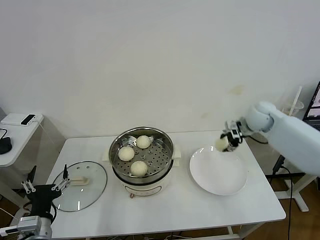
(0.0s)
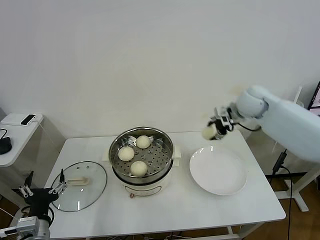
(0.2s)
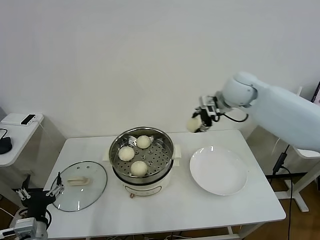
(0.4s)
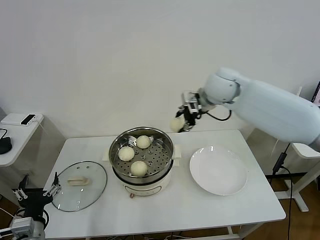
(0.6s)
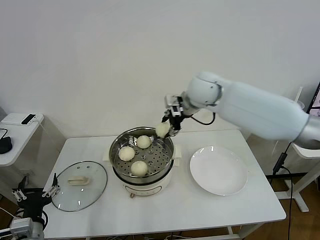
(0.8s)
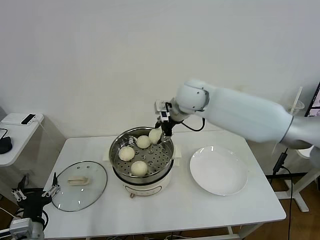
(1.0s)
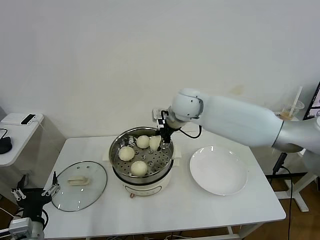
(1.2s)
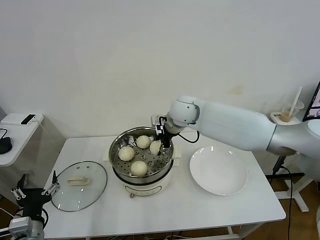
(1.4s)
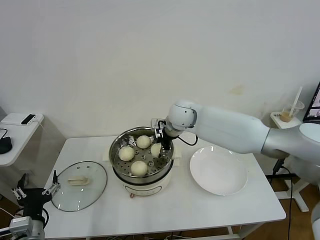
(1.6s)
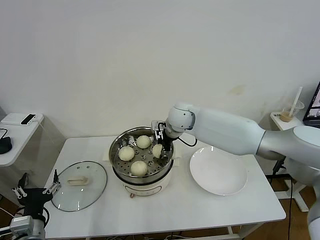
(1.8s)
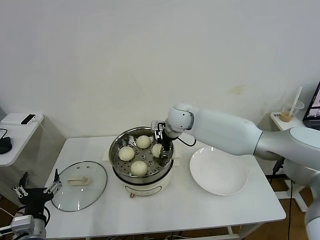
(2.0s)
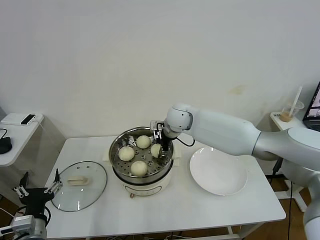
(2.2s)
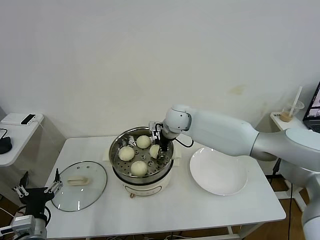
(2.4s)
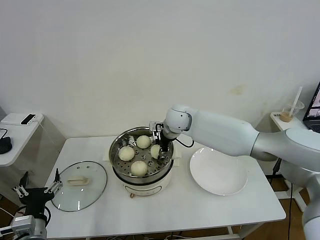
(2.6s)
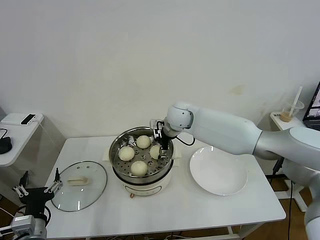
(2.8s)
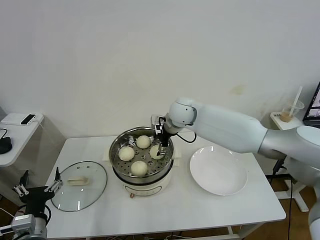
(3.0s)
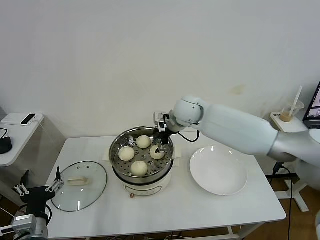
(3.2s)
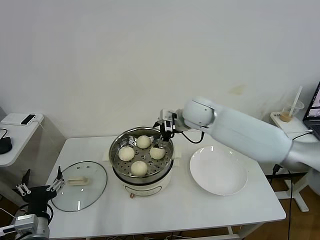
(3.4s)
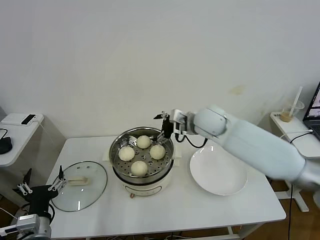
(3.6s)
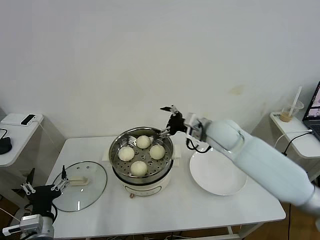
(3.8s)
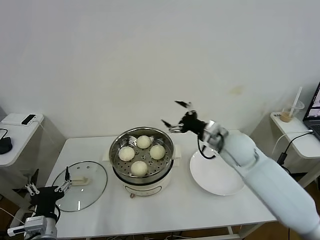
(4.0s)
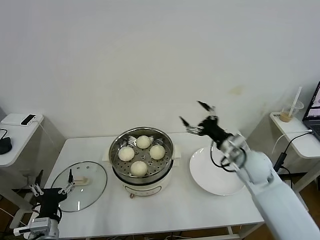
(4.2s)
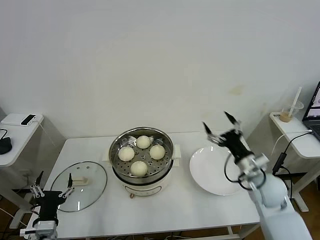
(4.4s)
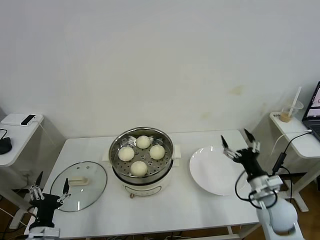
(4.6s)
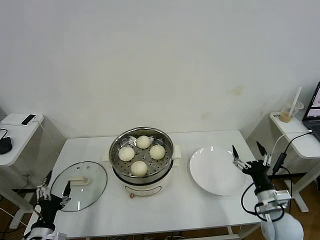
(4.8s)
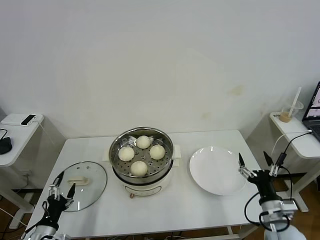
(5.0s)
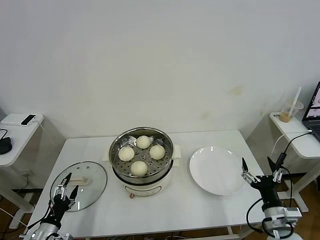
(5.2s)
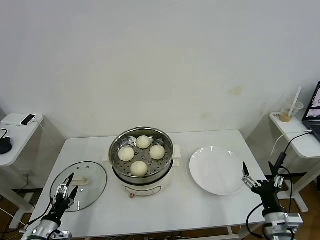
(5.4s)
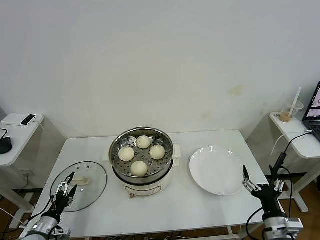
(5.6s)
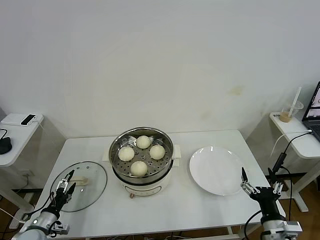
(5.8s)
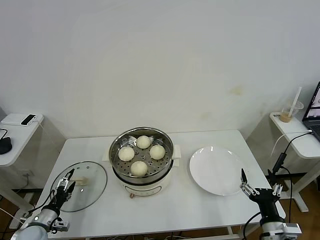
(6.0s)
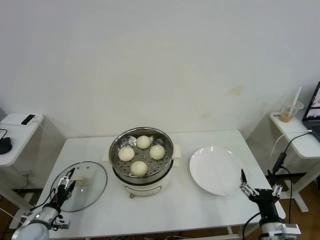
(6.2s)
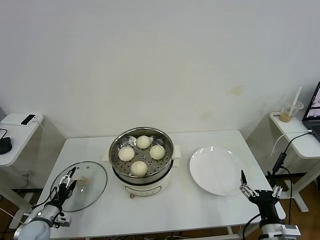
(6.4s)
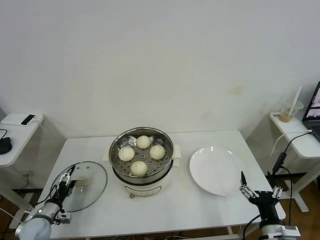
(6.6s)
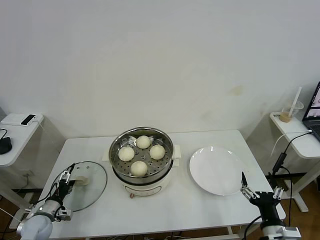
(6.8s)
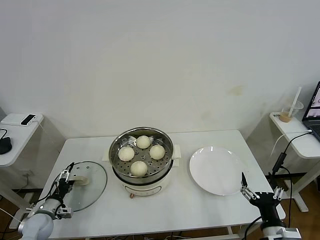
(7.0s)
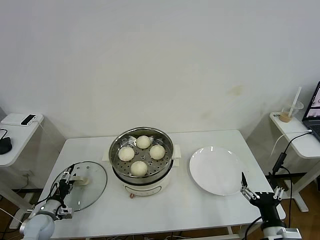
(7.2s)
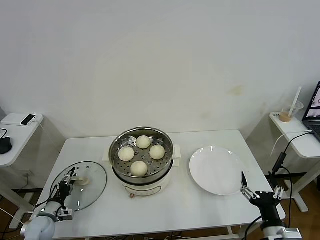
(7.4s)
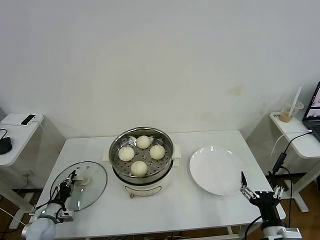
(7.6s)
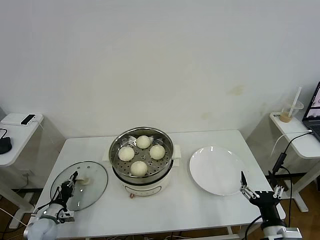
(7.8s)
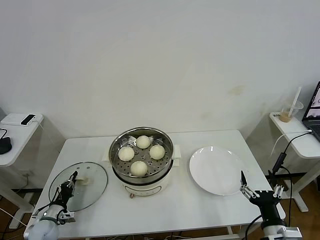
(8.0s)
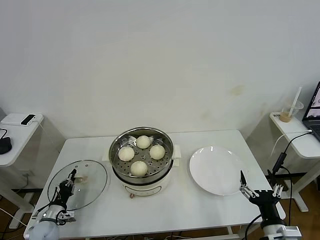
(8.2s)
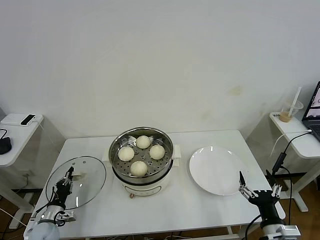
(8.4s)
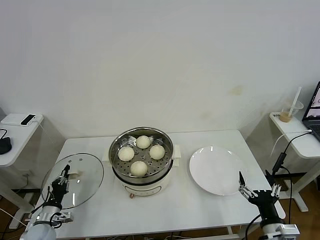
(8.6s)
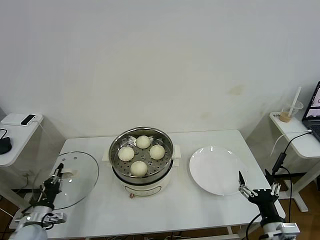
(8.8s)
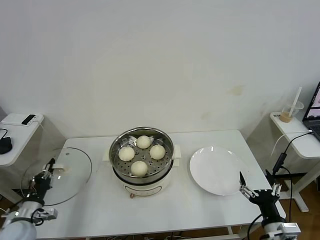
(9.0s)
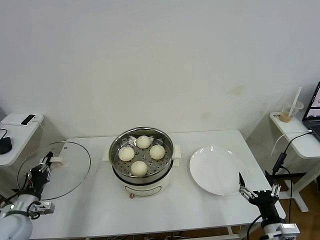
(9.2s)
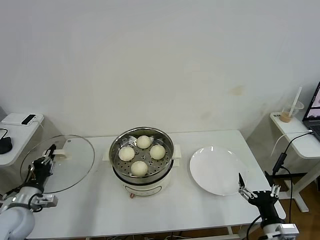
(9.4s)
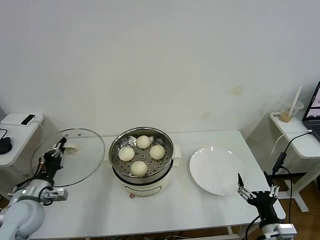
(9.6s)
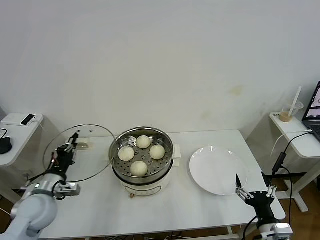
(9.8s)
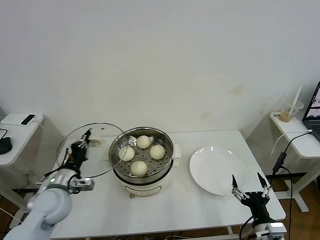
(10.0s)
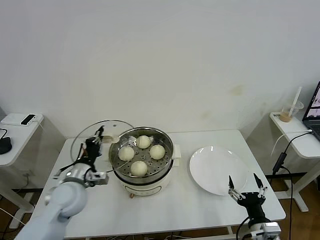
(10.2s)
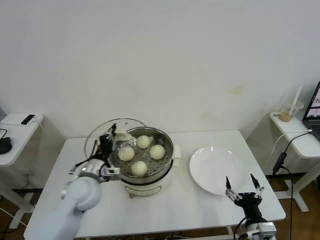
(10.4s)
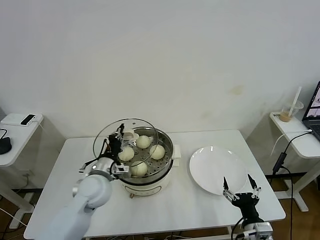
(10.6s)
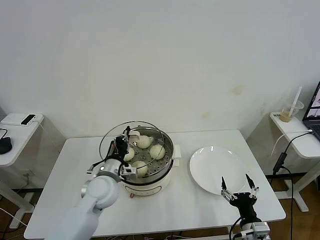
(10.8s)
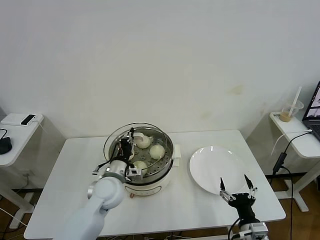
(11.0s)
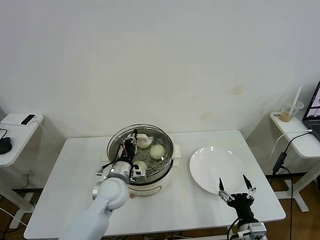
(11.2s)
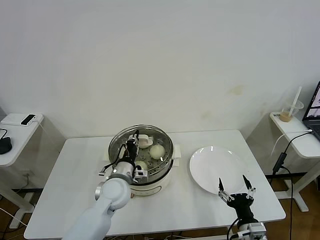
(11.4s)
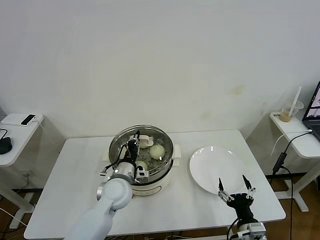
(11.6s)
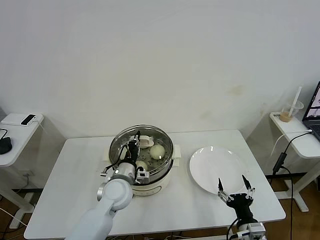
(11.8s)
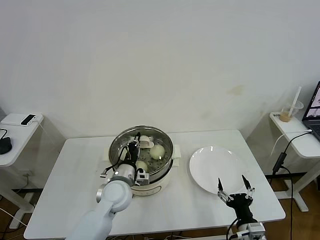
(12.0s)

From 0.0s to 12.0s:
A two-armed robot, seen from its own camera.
Task of the whole recording: take steamed baozi put them in steamer then cover it.
Step, from 0.0s to 2.8s: Place the baozi on the steamer with right gripper.
Step, from 3.2s to 7.8s: Grasp the pot lid with left gripper.
From 0.0s to 1.6s: The right gripper goes roughly 25 cm to the left.
From 1.6s to 3.0s: The right gripper opens up.
From 3.0s to 4.4s: The right gripper is displaced to the right, backward and downward by some 35 cm.
From 4.4s to 6.0s: The left gripper goes about 15 cm to the left, downward and forward; the right gripper is displaced backward by some 20 cm.
From 6.0s to 7.6s: The left gripper changes place by some 5 cm, and closes its fingers.
From 7.6s to 9.0s: The left gripper shifts about 10 cm upward, and closes.
From 9.0s to 10.4s: The left gripper is displaced to the right, upward and forward by roughly 25 cm.
From 10.4s to 12.0s: The left gripper is displaced to the right by some 10 cm.

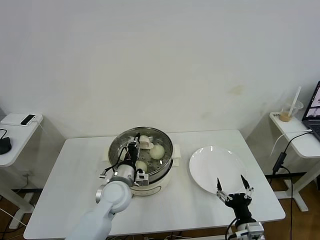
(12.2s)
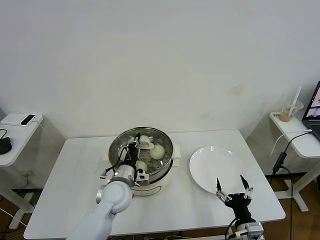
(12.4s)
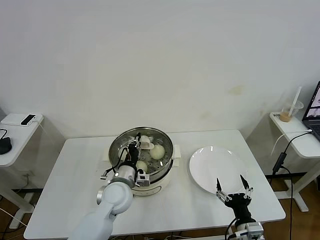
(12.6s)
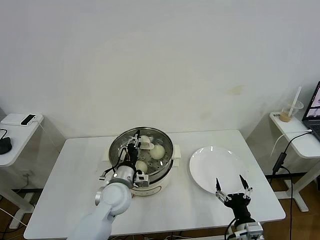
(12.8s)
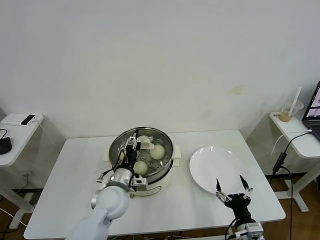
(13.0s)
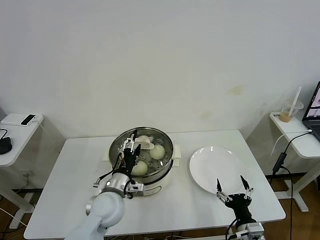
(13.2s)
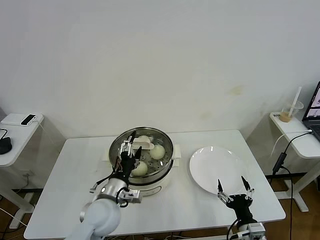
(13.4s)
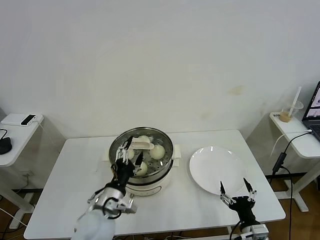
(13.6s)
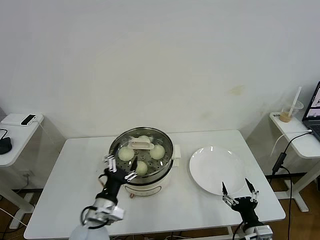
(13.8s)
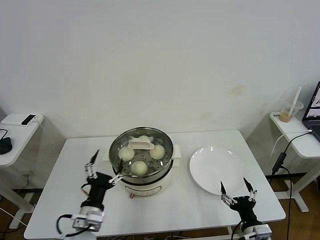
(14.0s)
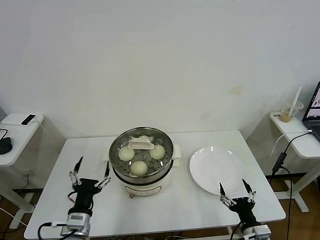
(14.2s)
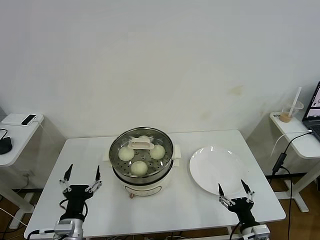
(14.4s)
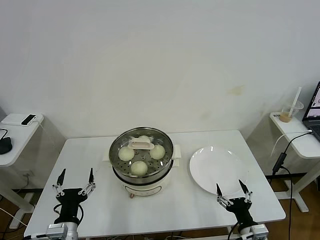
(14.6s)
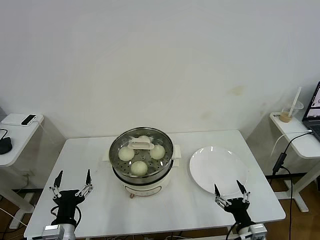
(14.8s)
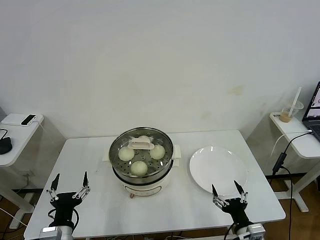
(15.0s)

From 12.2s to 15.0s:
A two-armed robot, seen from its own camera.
Task of the whole recording: take steamed baozi put them in steamer then cover it.
From 12.2s to 13.6s: The left gripper travels backward by about 10 cm, and opens up.
From 13.6s to 15.0s: The left gripper moves backward and to the left, approximately 15 cm.
